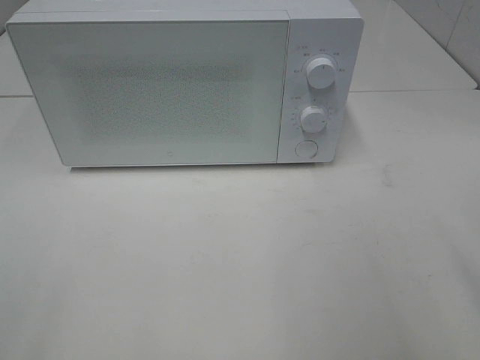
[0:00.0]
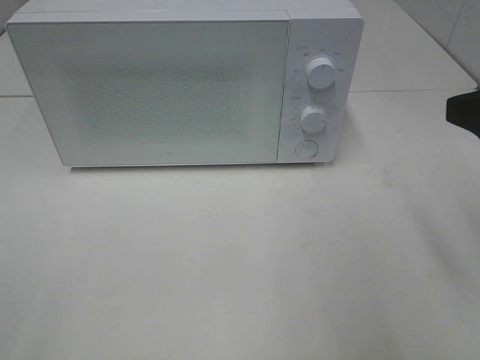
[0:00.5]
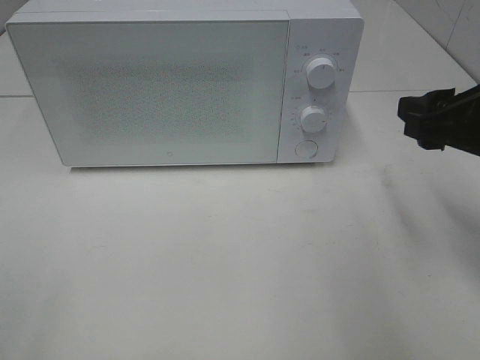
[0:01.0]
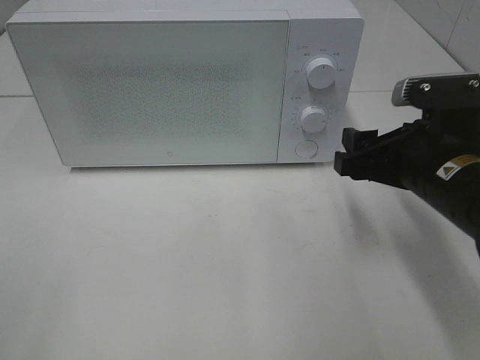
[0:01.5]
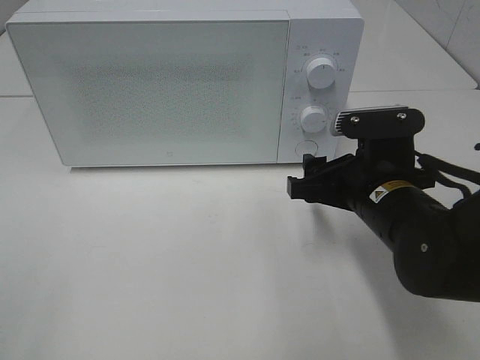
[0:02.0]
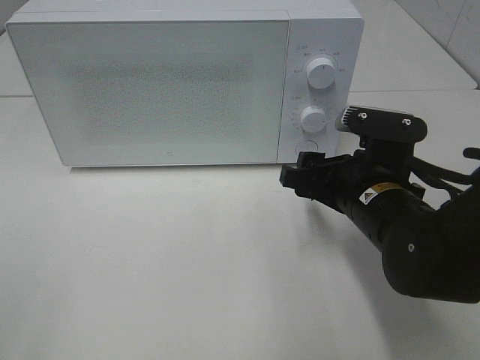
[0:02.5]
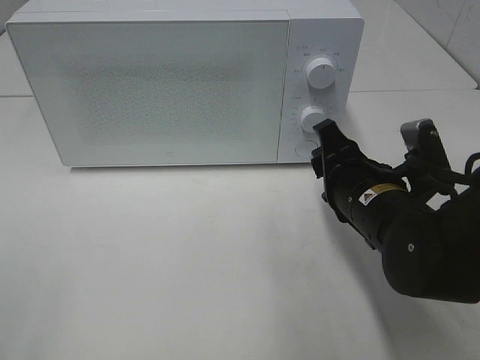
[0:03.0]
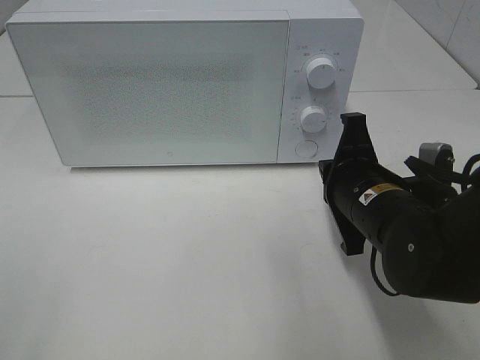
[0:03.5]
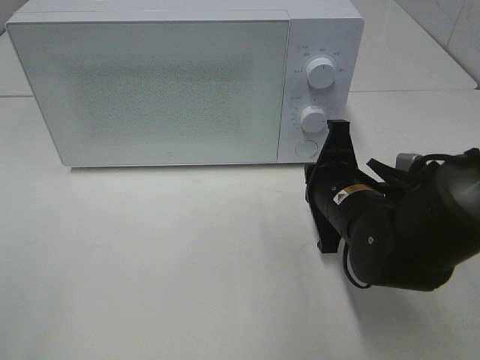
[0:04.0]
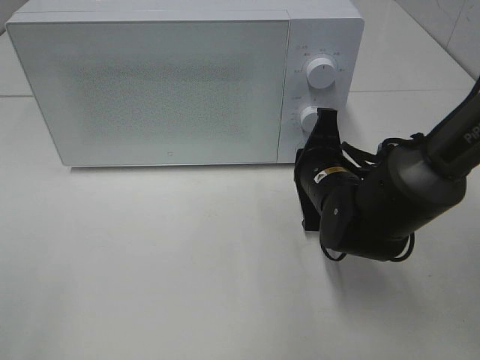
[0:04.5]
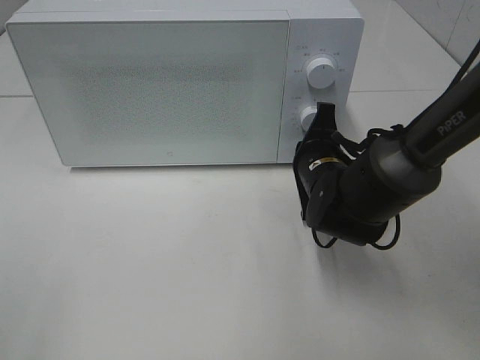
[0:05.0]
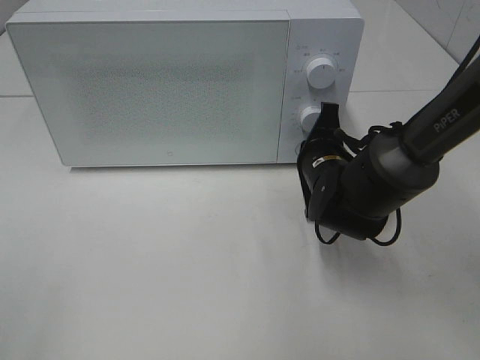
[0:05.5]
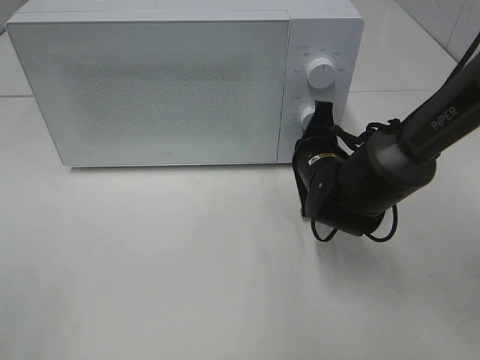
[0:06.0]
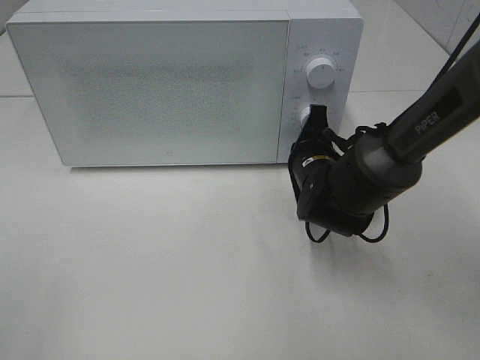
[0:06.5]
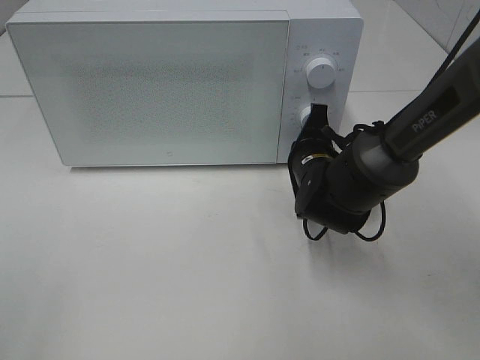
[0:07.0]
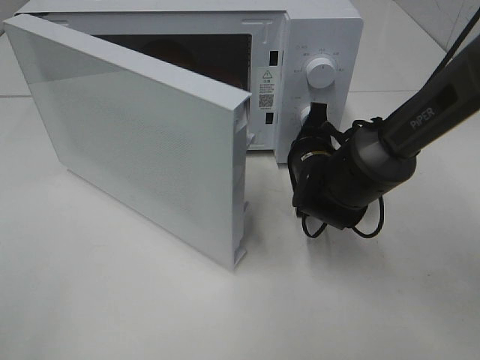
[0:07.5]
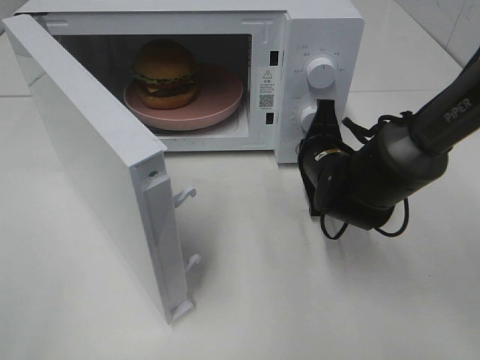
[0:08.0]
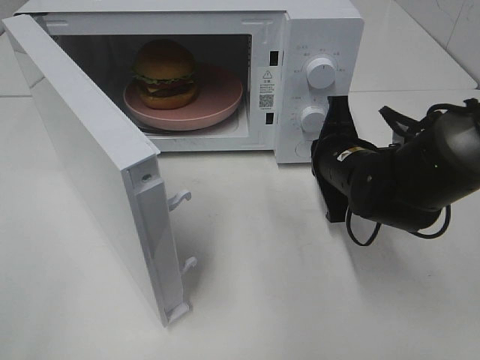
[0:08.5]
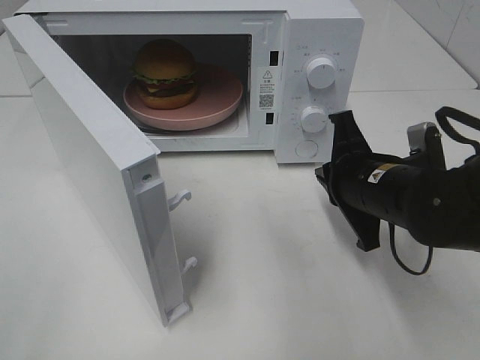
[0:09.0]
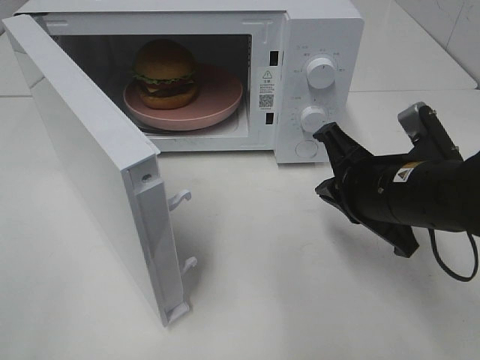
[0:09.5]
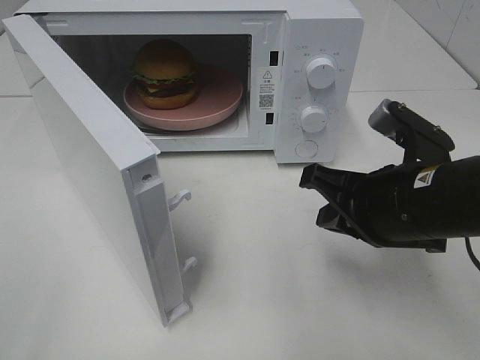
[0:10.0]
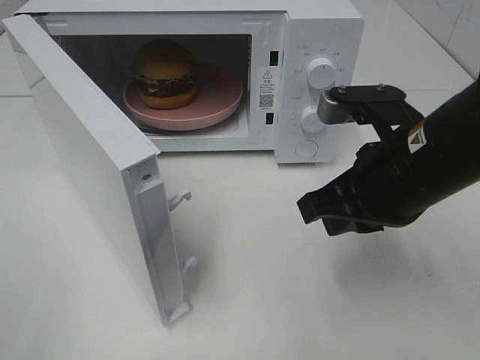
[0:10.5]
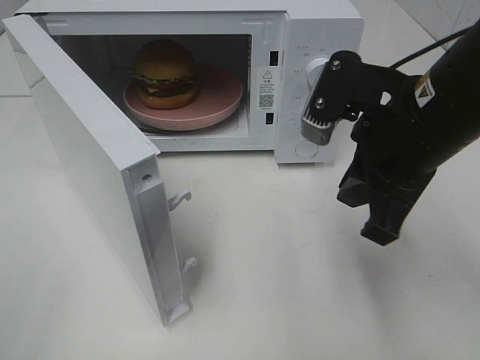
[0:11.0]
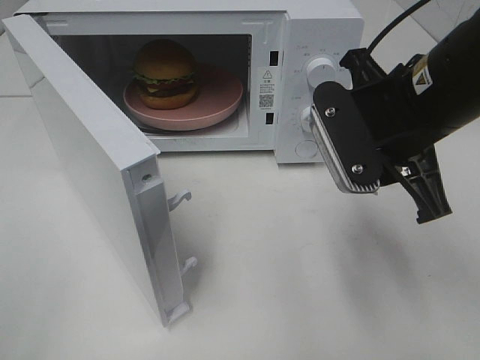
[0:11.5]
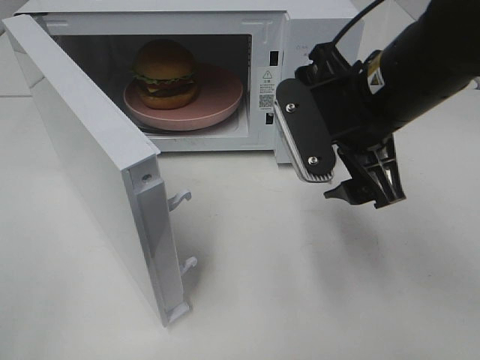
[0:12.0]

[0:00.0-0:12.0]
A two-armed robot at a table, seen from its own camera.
Task of the whole recording: Heat the burger.
Step, 0:00.0 to 0:08.5: Right hand: press the switch.
0:00.0 to 0:02.0: The right gripper travels downward, forward and to the left by some 25 cm.
0:02.0 to 0:04.0: The right gripper closes its fingers.
0:04.0 to 0:06.0: The right gripper moves forward, roughly 5 cm.
0:08.0 to 0:10.0: The right gripper heads backward and upward, covering approximately 15 cm.
0:10.0 to 0:12.0: The right gripper shifts about 10 cm upward and forward, and opens its fingers.

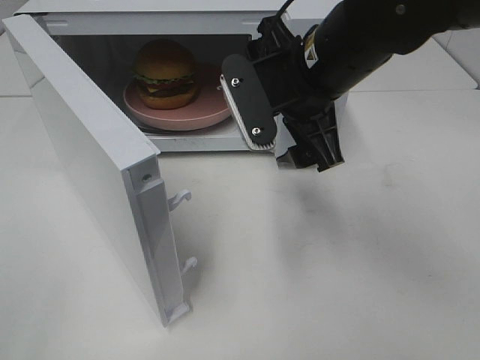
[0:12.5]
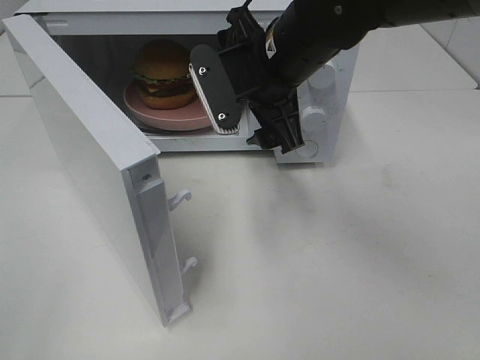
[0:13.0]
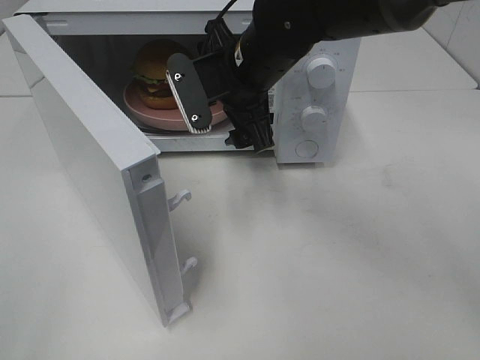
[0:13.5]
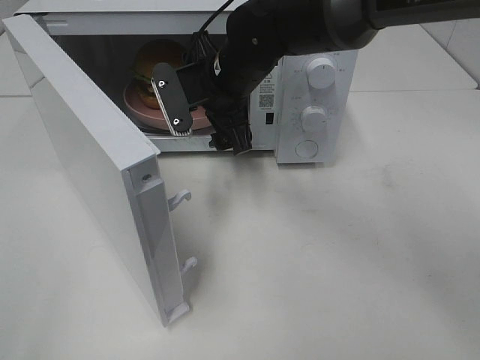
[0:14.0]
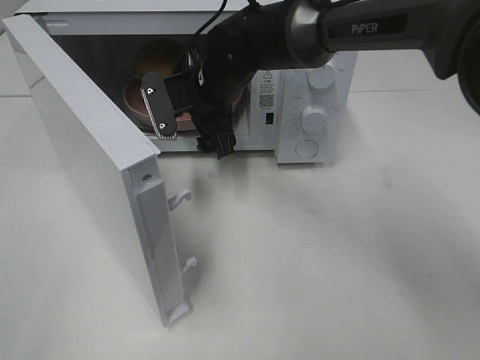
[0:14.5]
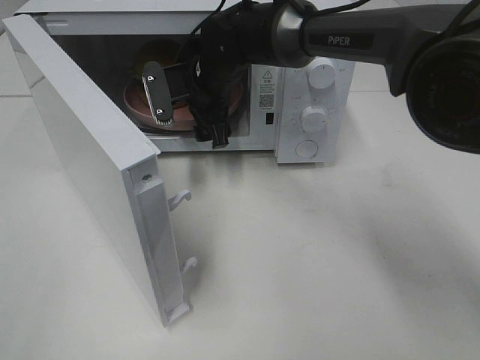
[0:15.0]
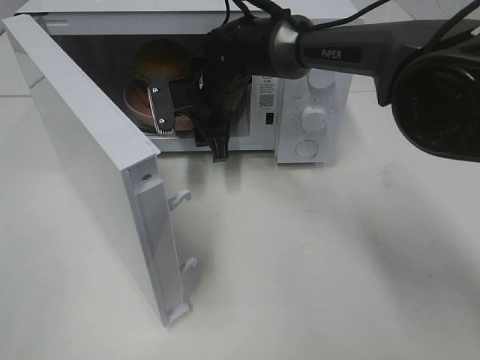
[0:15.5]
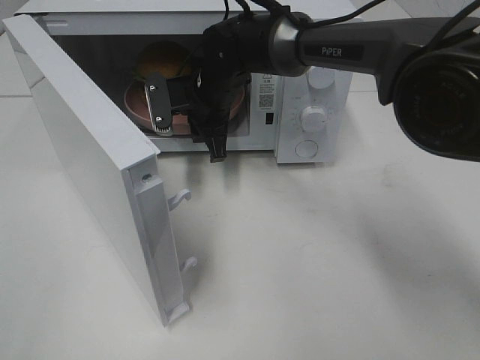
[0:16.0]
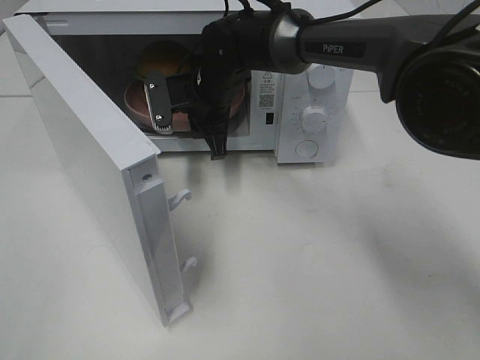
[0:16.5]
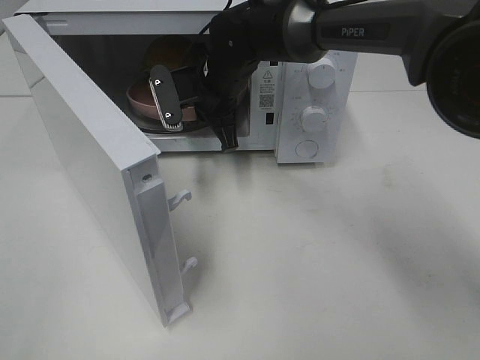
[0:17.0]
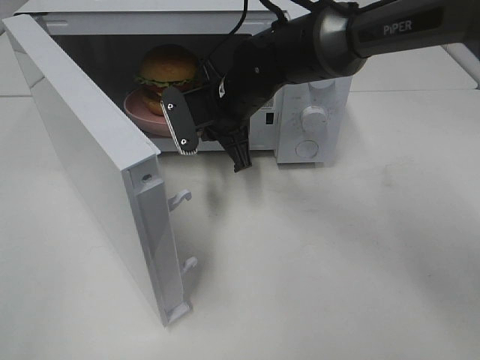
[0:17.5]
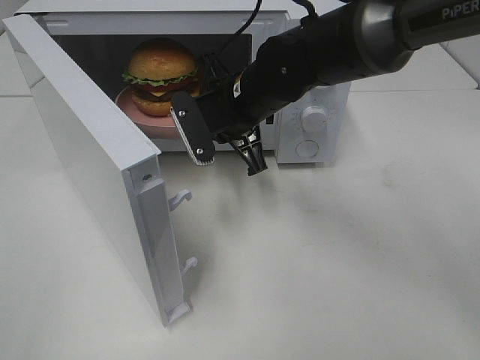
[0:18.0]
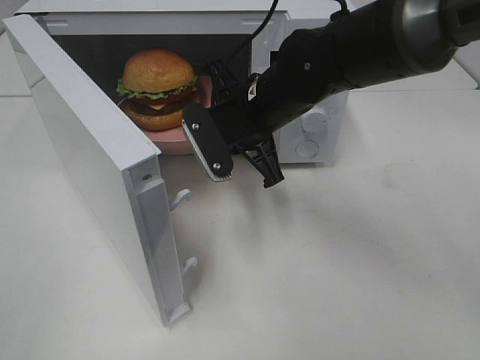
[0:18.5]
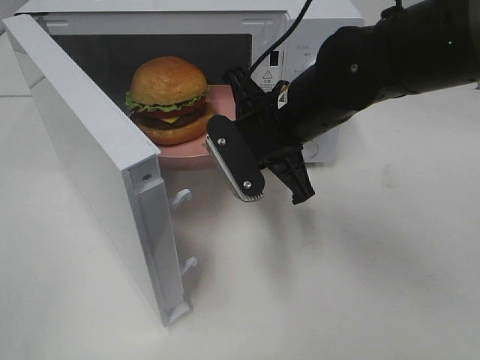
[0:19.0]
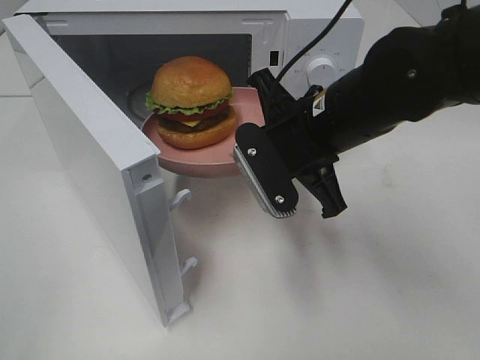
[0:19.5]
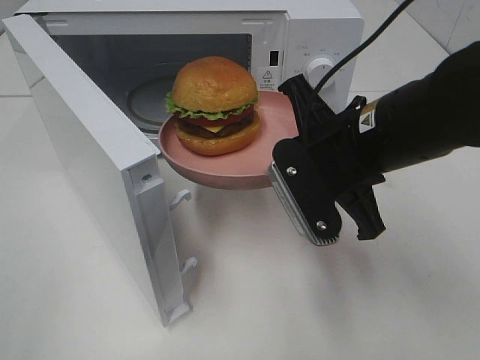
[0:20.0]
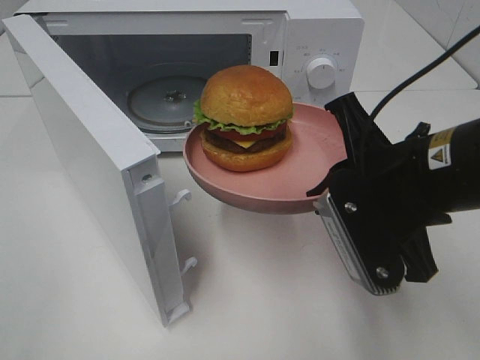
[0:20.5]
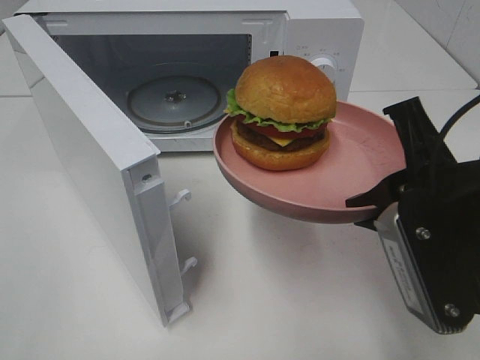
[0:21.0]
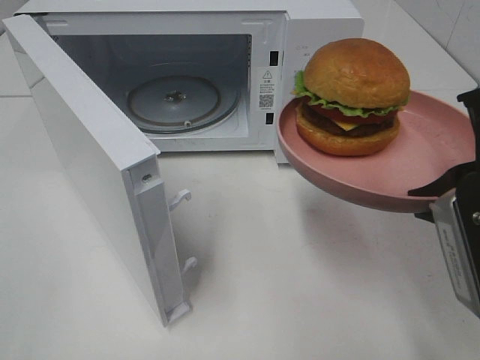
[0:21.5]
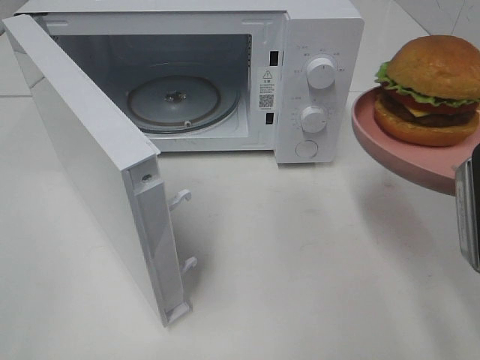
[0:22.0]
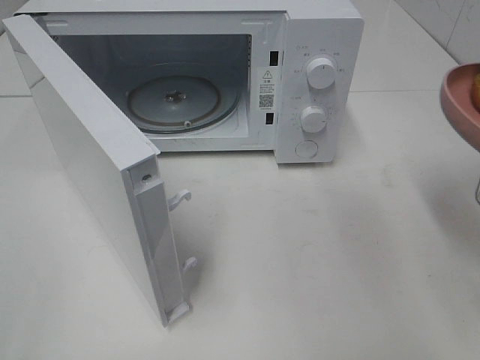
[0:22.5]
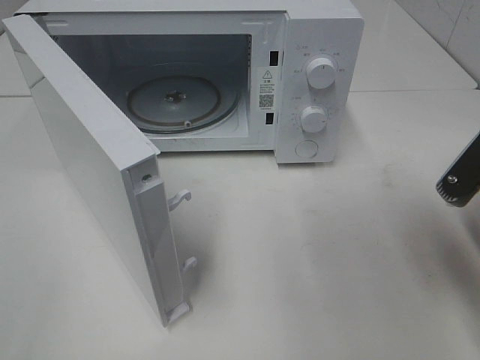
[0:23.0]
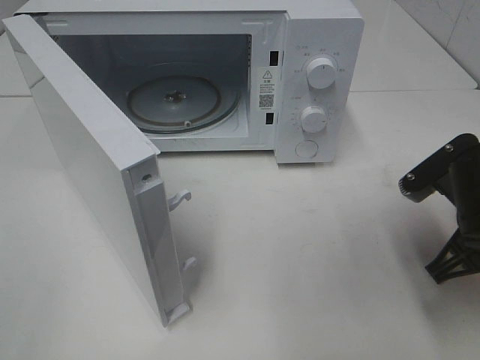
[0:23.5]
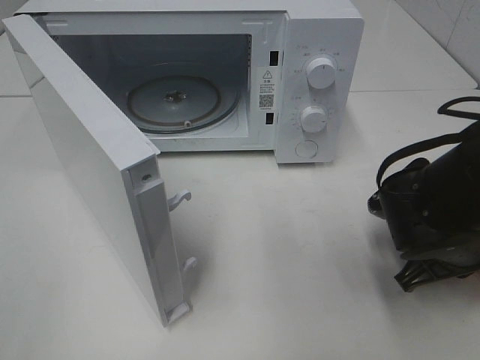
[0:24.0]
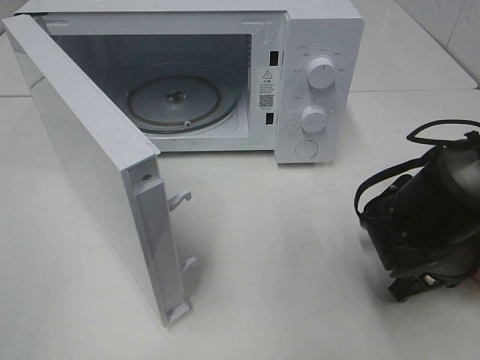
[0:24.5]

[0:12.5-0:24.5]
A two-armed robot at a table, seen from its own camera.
Task of the whole recording: Heat the burger.
Step, 0:12.5 to 0:16.5: Right hand: grab the plate with the hamburger.
0:12.5 to 0:14.5: The right gripper is displaced forward, to the left and downward by approximately 15 cm.
0:14.5 to 0:16.5: The right gripper closes its fingers.
0:16.5 to 0:18.5: The right gripper shifts roughly 10 cm backward and to the right.
0:18.5 to 0:20.5: The right gripper heads backward and to the right, covering roughly 20 cm.
0:20.5 to 0:22.5: The right gripper travels to the right by about 10 cm.
0:22.5 to 0:24.5: The right gripper travels downward and forward by some 20 cm.

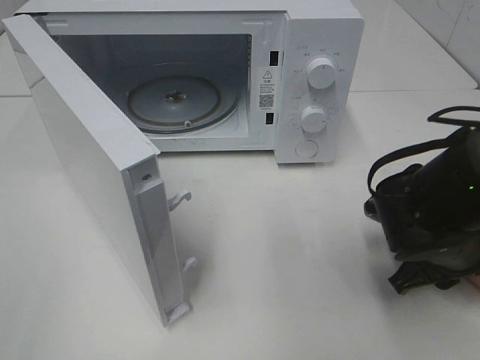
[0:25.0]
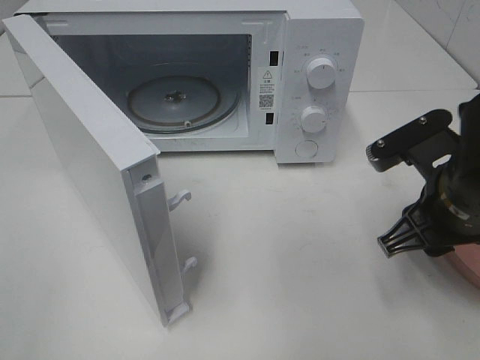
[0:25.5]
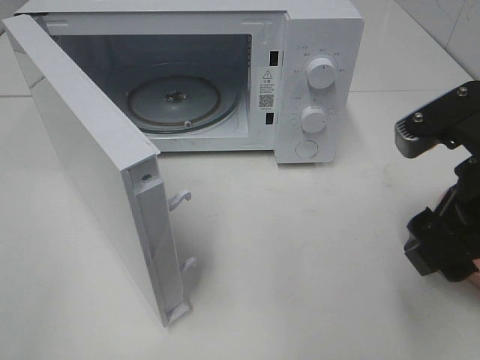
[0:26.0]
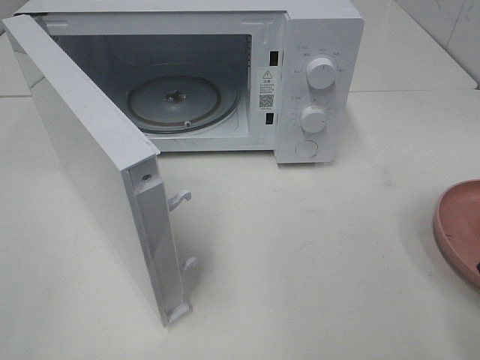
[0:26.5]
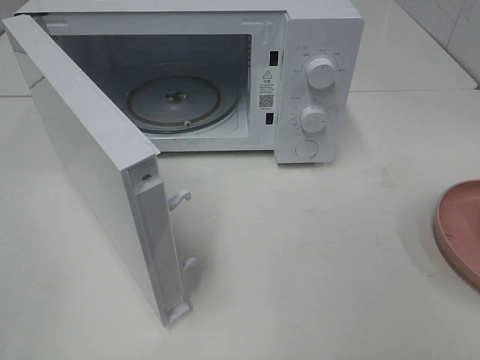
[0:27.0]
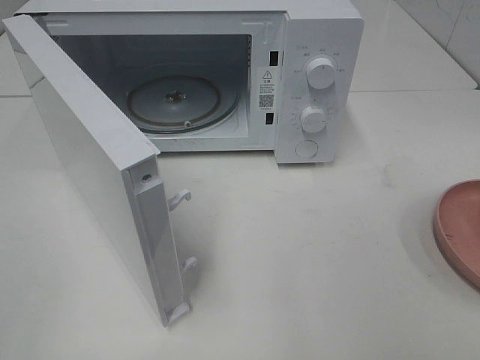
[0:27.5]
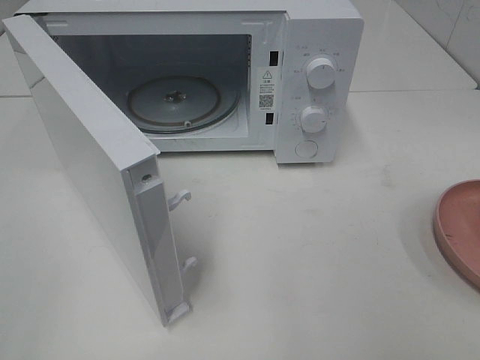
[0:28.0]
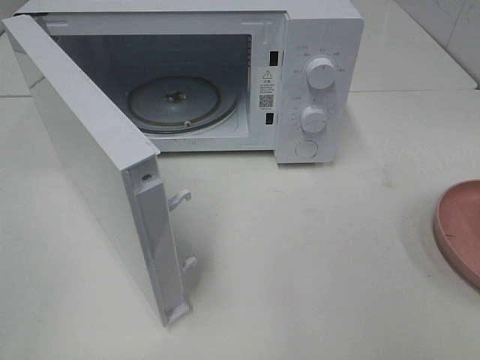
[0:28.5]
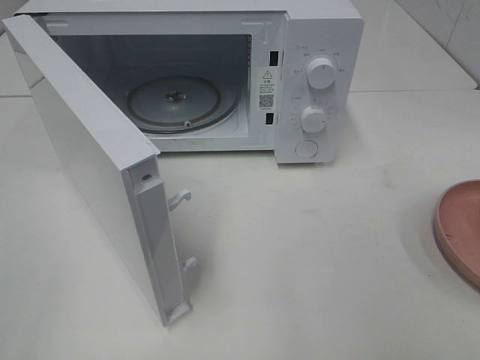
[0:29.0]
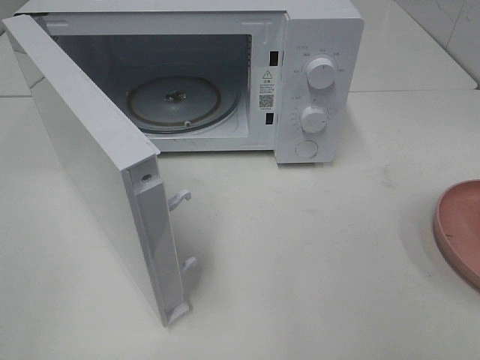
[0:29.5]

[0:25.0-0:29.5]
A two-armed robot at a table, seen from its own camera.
Task of the whole recording: Heat the burger.
0:25.0 to 0:27.0: The right gripper heads upward and backward, covering roughly 25 cm.
